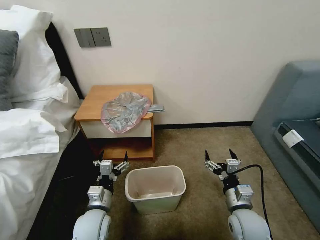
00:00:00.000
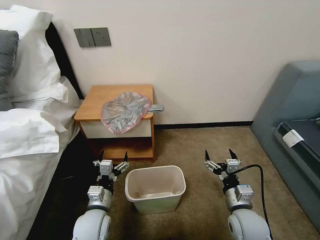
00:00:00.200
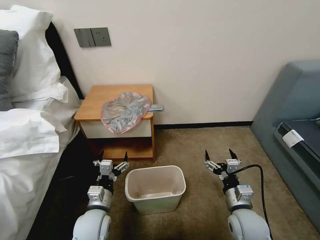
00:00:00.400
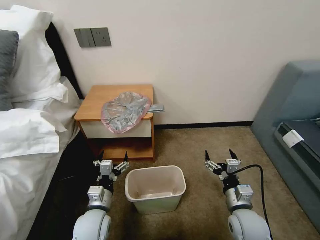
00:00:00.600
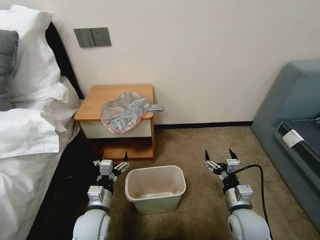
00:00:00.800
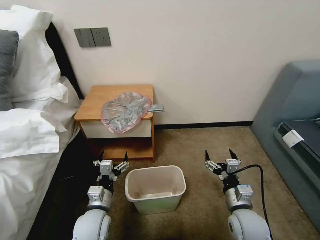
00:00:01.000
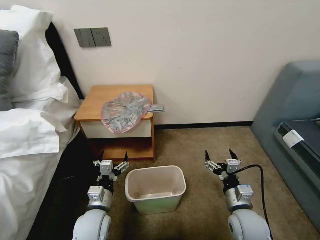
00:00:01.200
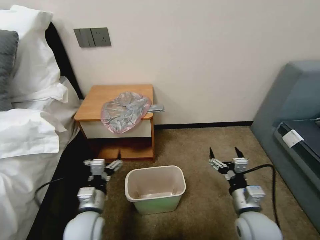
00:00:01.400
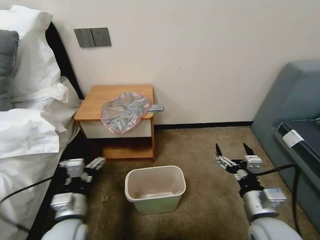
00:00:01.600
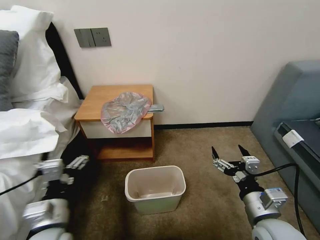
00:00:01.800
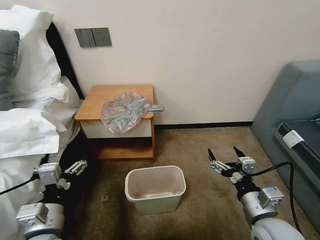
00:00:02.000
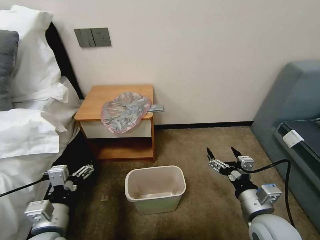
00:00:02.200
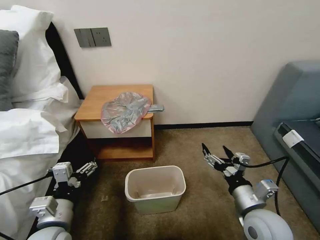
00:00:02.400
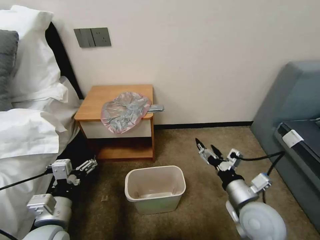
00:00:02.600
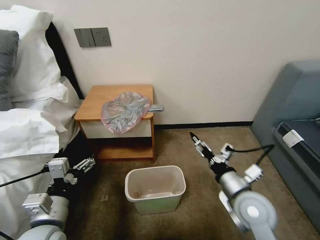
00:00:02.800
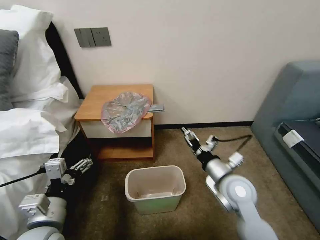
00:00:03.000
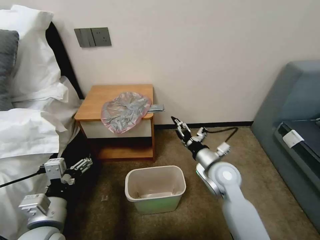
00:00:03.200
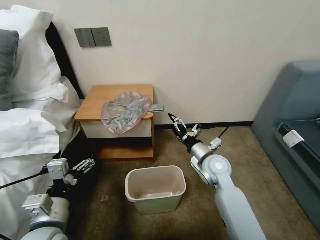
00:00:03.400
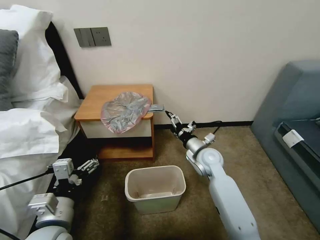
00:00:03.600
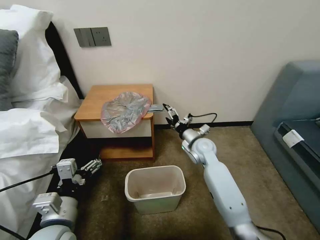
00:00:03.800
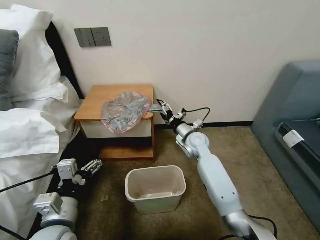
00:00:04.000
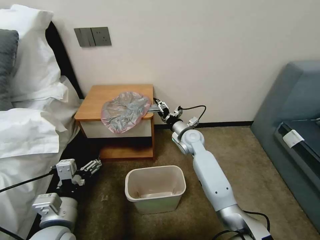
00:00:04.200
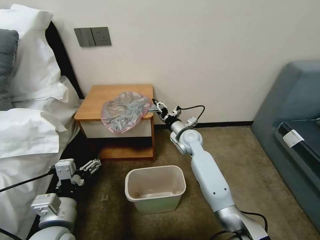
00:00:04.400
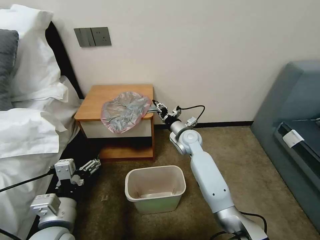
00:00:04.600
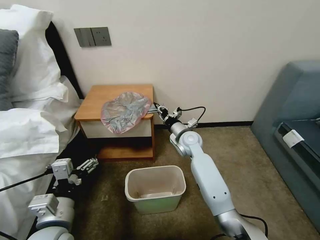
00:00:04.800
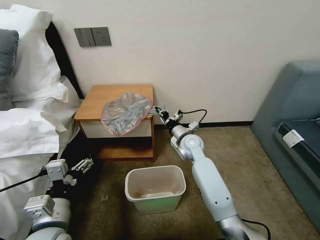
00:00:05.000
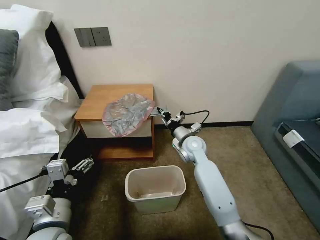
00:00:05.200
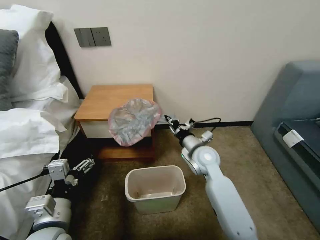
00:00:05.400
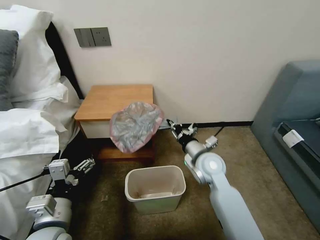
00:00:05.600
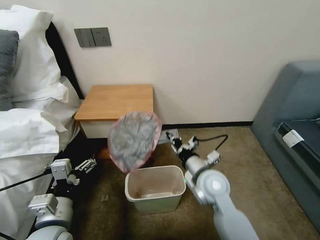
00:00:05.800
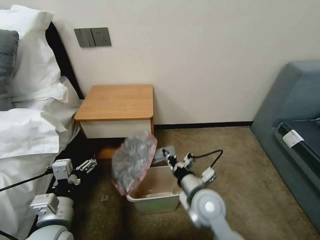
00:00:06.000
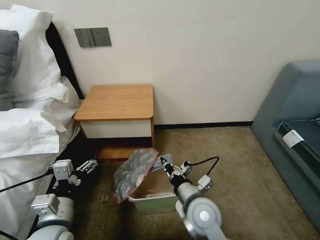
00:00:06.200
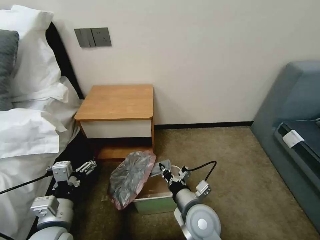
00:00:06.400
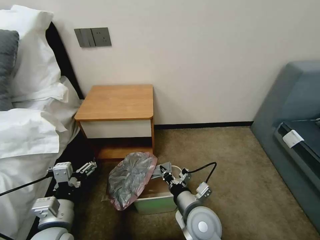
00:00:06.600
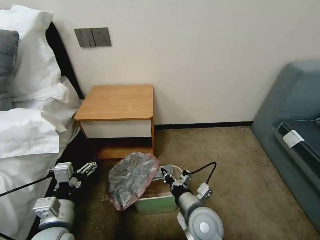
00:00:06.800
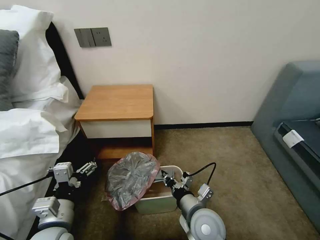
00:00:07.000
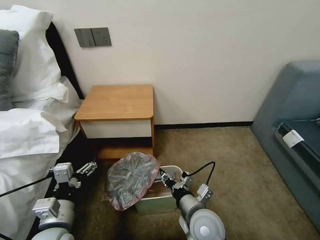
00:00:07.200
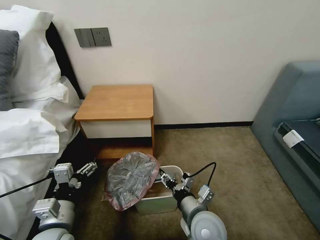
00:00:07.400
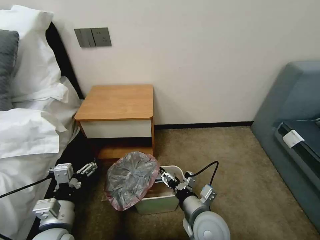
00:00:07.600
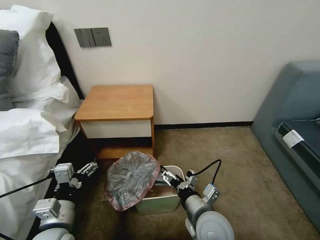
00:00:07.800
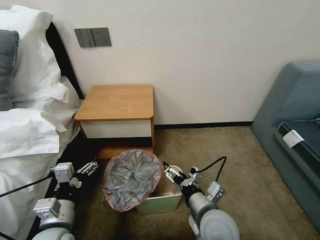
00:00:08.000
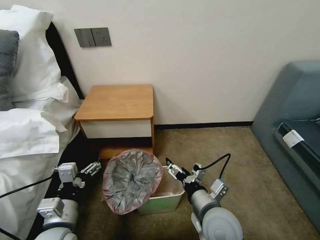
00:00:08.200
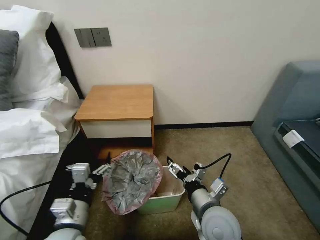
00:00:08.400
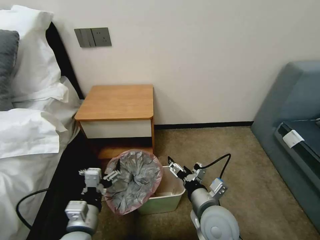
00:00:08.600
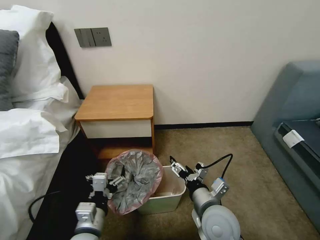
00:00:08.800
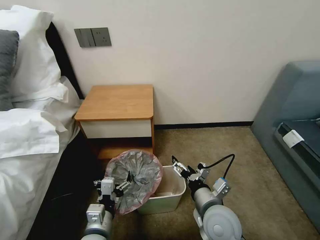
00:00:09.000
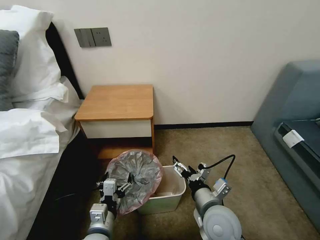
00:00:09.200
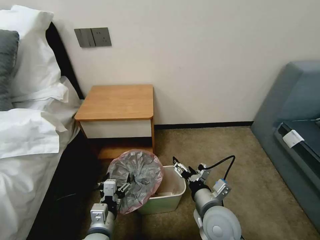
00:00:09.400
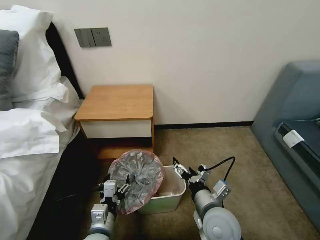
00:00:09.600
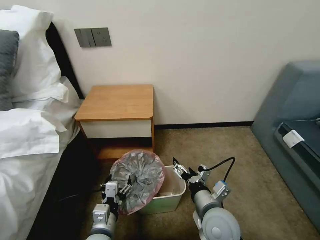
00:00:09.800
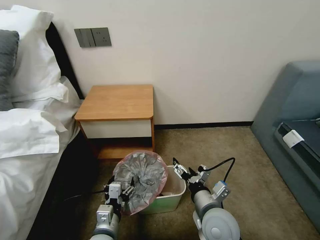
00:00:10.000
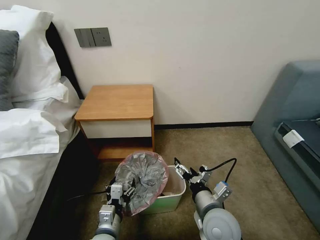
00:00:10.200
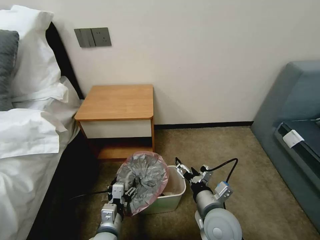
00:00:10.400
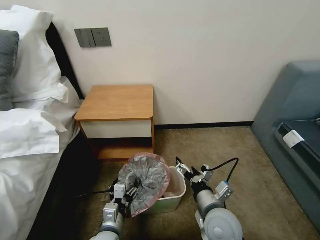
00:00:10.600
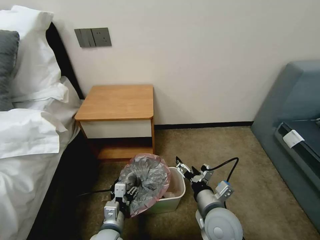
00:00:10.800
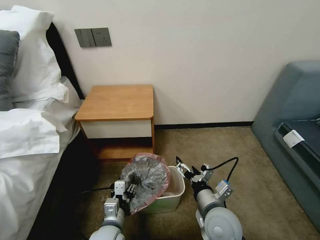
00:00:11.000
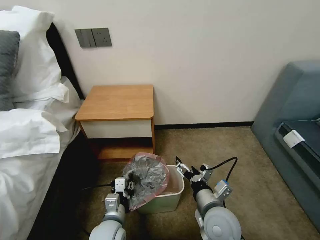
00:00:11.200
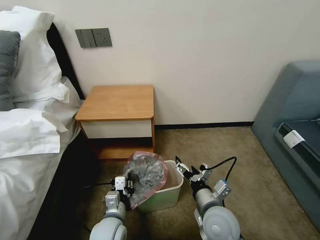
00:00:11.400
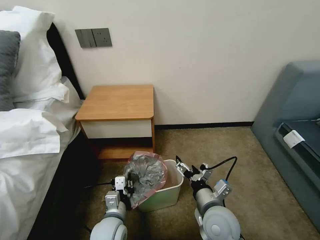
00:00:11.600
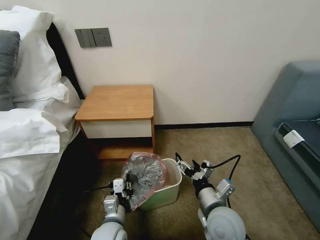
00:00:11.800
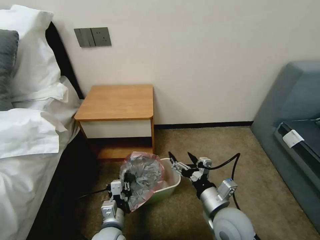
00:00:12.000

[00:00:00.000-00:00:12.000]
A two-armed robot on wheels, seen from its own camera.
Task of the whole recording: Pick up the garbage bag from the table and place it over the trash can.
00:00:01.600 to 00:00:03.000: The right gripper is displaced forward by about 10 cm. Meanwhile the left gripper goes approximately 5 cm upward.
00:00:03.000 to 00:00:04.400: The right gripper travels forward and to the left by approximately 25 cm, and closes up.
00:00:04.400 to 00:00:06.000: The right gripper heads backward, covering roughly 25 cm, and closes up.
00:00:06.000 to 00:00:07.600: The right gripper is displaced backward by about 5 cm, and opens its fingers.
00:00:07.600 to 00:00:09.000: The left gripper travels to the right and downward by some 10 cm.
00:00:09.000 to 00:00:10.400: The left gripper ends up about 5 cm from where it was.
00:00:10.400 to 00:00:12.000: The left gripper closes up.

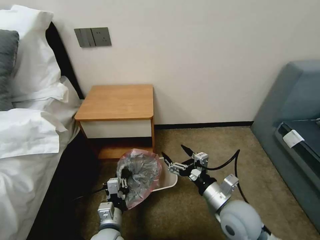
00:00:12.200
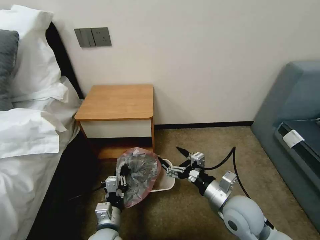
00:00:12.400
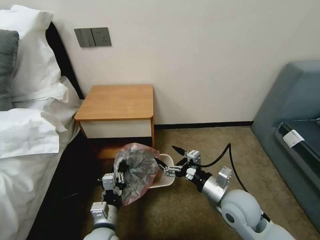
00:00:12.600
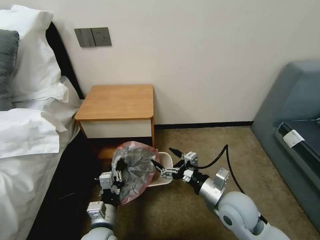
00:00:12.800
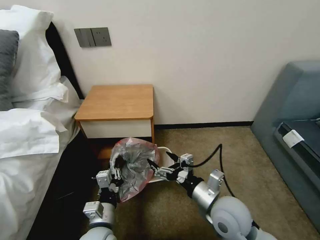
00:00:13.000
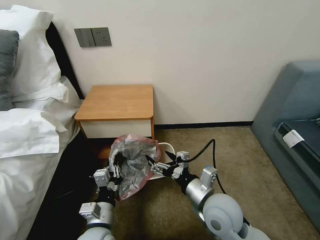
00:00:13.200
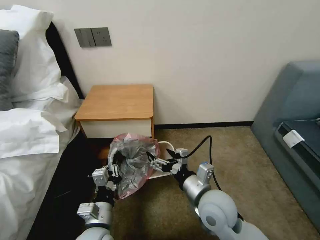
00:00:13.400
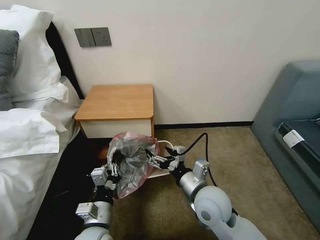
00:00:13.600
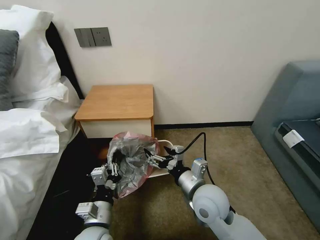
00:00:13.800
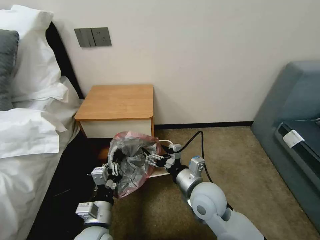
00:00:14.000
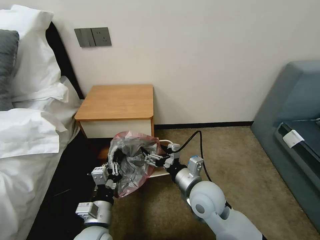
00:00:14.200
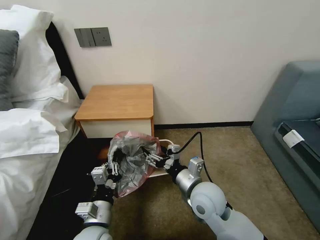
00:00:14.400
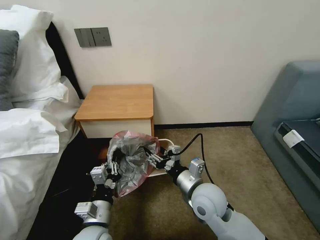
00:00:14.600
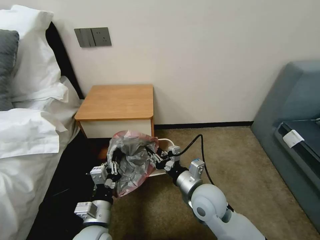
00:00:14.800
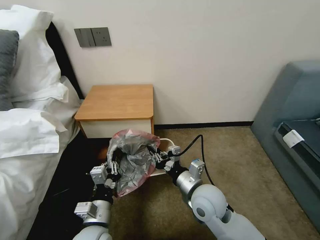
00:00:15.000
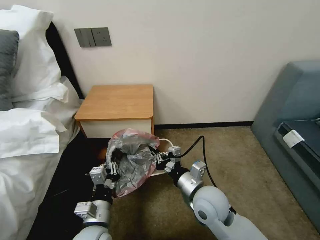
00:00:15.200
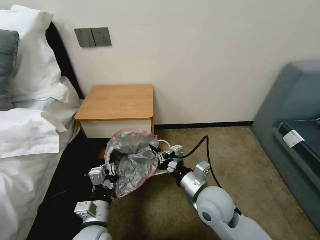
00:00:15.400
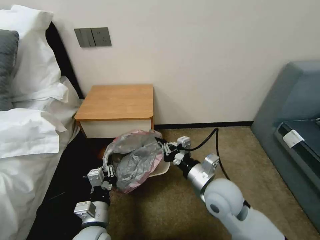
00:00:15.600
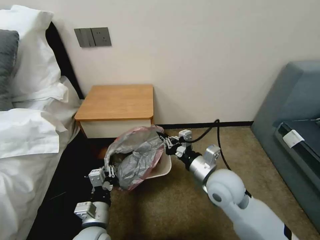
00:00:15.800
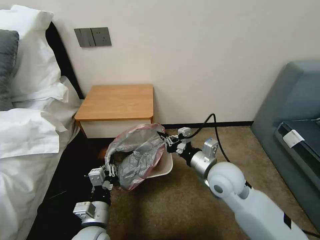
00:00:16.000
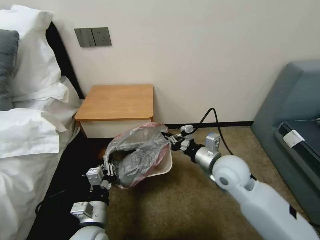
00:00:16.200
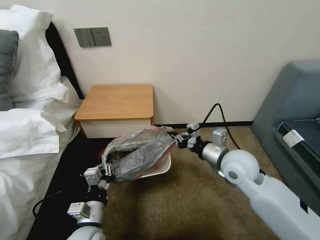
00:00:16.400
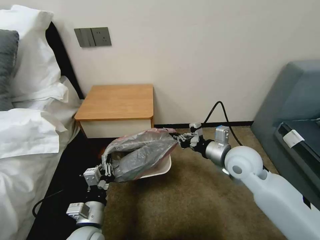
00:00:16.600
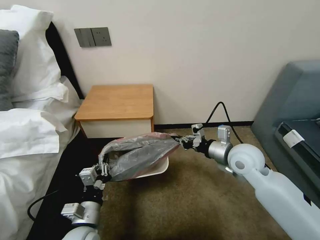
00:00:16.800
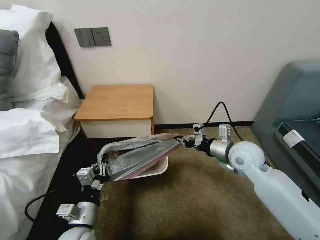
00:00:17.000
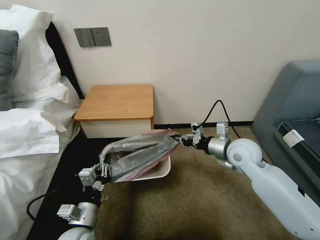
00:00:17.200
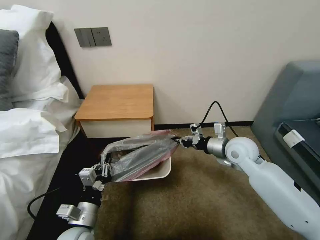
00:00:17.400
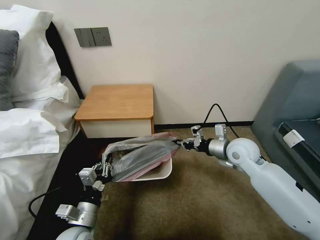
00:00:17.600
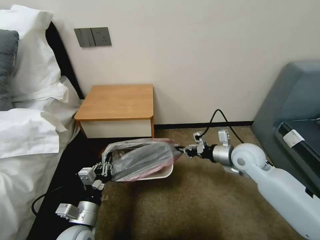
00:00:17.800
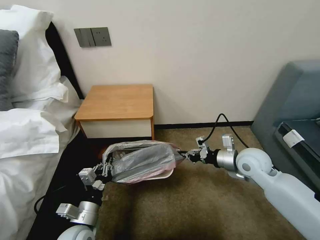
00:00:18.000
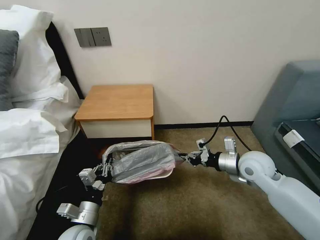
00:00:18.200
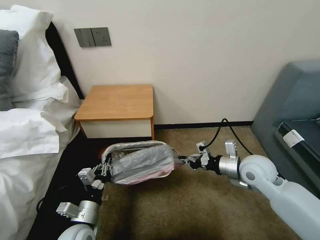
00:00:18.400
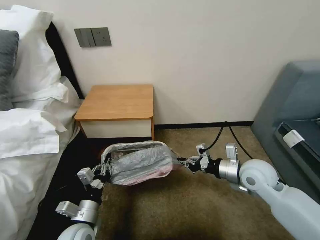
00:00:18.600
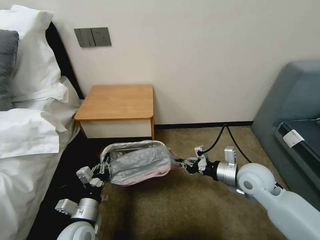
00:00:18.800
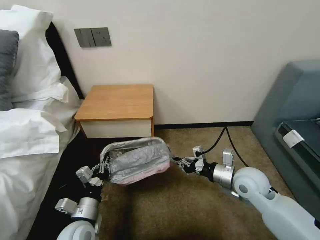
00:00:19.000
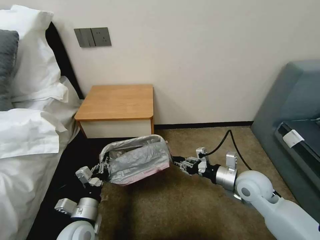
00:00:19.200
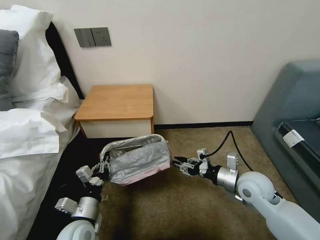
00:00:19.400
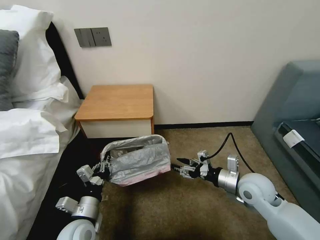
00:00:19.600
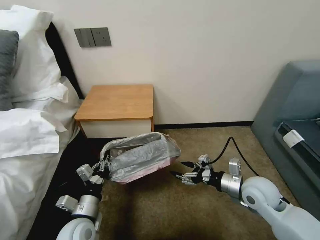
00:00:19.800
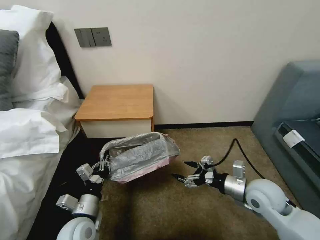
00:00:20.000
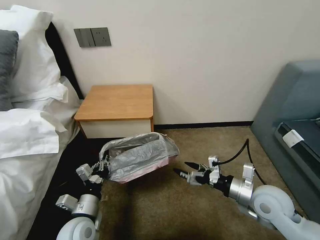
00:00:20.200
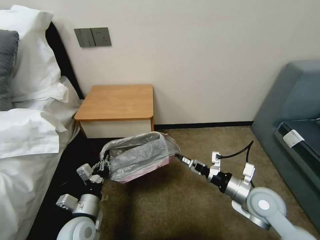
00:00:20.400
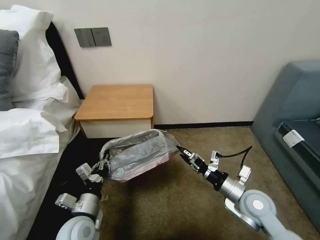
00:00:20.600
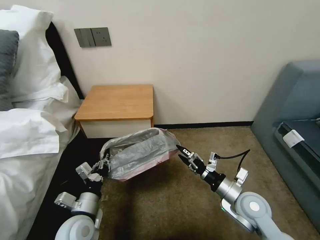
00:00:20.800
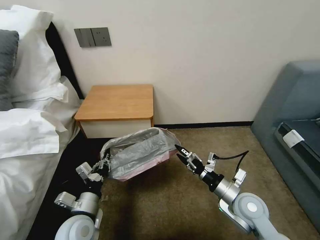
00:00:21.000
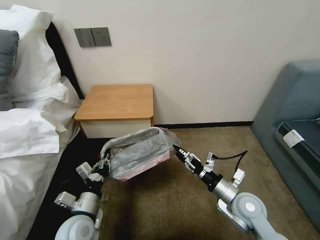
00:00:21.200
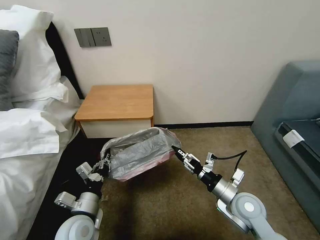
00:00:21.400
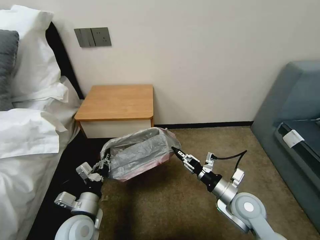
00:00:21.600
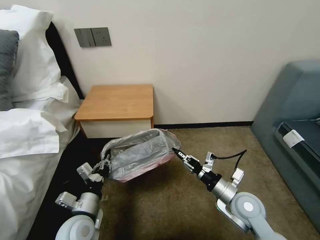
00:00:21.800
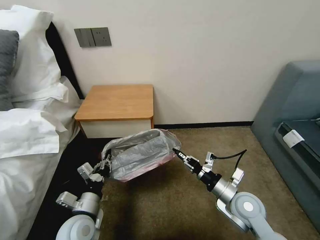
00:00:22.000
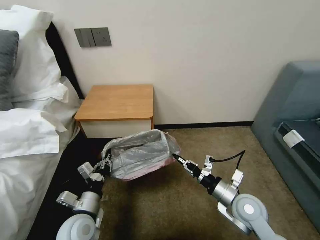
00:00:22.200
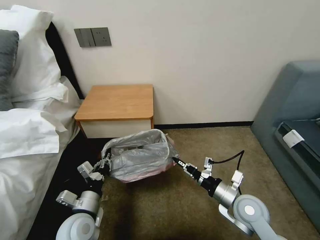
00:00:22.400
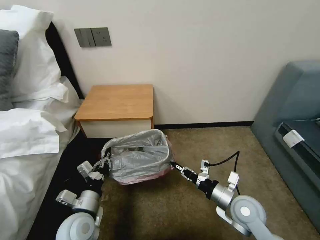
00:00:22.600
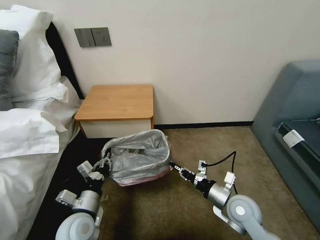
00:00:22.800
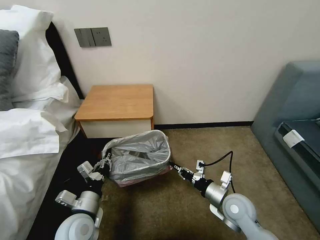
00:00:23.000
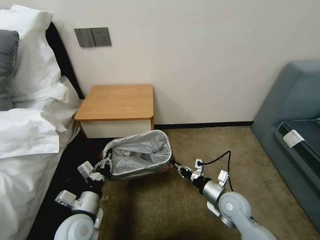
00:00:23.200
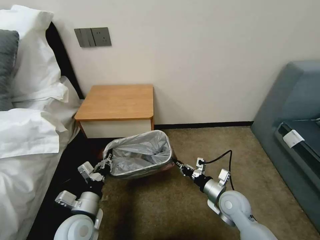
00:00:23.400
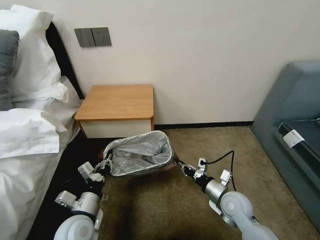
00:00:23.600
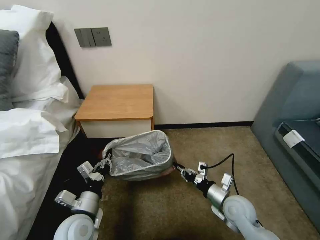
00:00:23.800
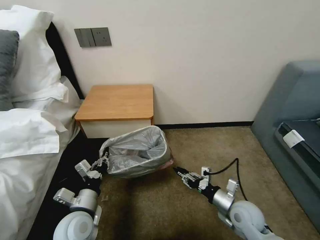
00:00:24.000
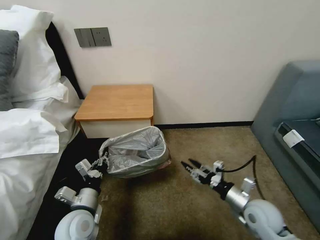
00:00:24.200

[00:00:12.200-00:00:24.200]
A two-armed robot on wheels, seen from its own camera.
Task of the whole recording: Pick up the garbage bag from the table and place it over the trash can.
00:00:12.200 to 00:00:13.800: The right gripper is displaced to the left by approximately 5 cm. Meanwhile the left gripper goes roughly 5 cm upward.
00:00:13.800 to 00:00:15.200: The right gripper closes up.
00:00:15.200 to 00:00:16.600: The right gripper goes some 15 cm to the right, forward and upward.
00:00:16.600 to 00:00:18.200: The right gripper is displaced to the right by about 5 cm.
00:00:18.200 to 00:00:19.800: The right gripper is displaced backward by approximately 5 cm, and opens its fingers.
00:00:19.800 to 00:00:21.200: The right gripper shifts by about 5 cm.
00:00:21.200 to 00:00:22.600: The right gripper closes.
00:00:22.600 to 00:00:24.200: The right gripper ends up approximately 5 cm from where it was, and opens up.
